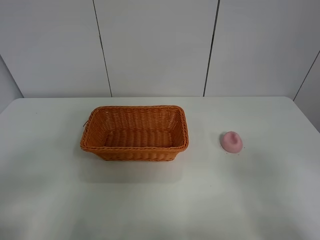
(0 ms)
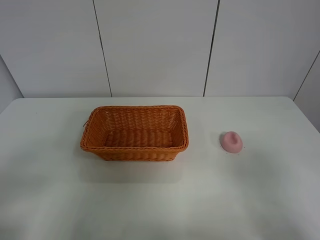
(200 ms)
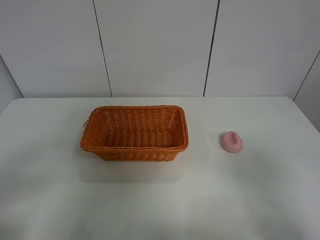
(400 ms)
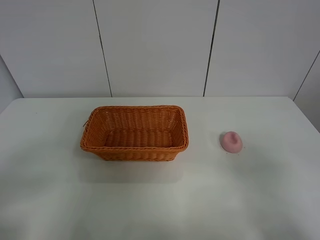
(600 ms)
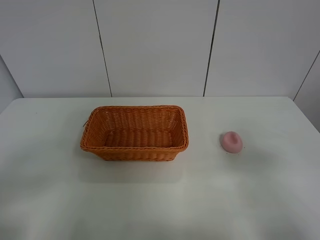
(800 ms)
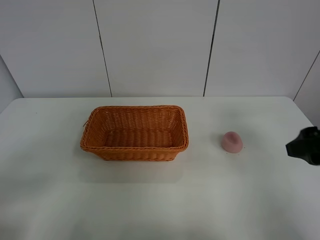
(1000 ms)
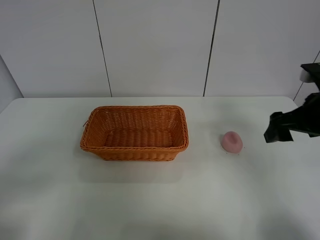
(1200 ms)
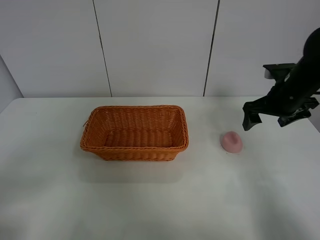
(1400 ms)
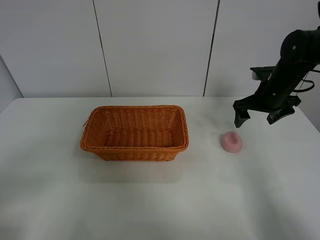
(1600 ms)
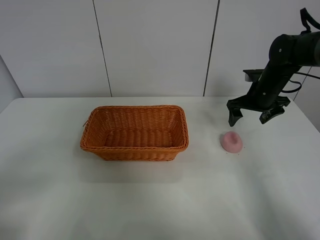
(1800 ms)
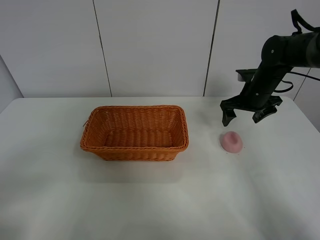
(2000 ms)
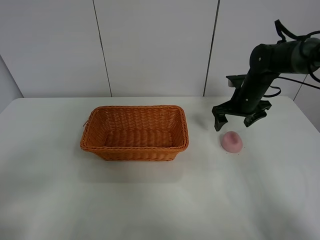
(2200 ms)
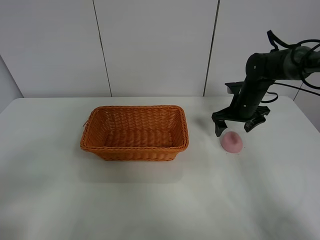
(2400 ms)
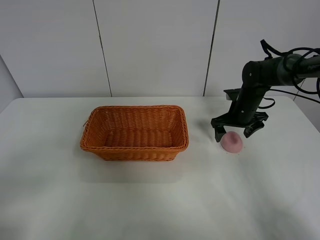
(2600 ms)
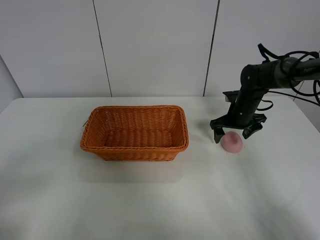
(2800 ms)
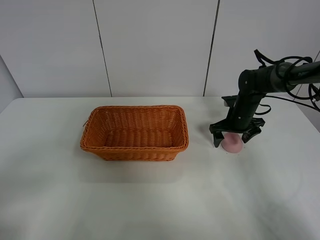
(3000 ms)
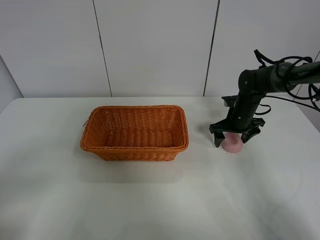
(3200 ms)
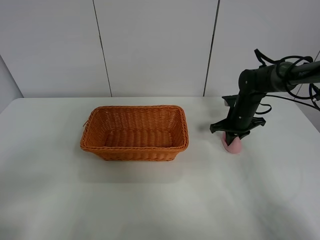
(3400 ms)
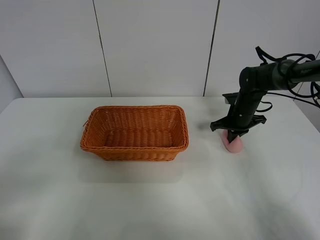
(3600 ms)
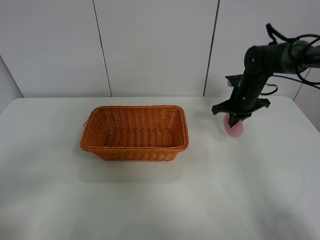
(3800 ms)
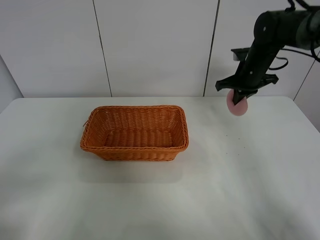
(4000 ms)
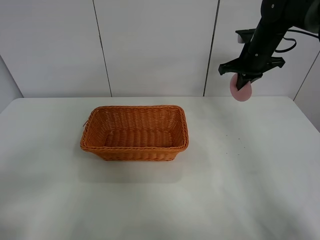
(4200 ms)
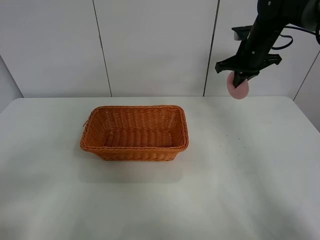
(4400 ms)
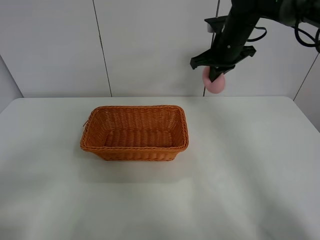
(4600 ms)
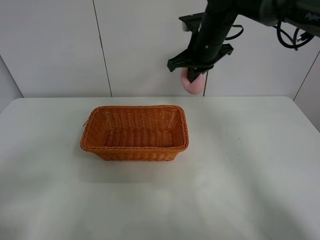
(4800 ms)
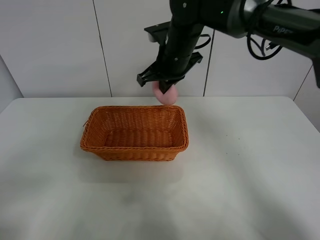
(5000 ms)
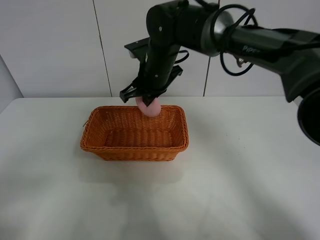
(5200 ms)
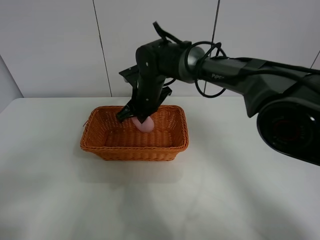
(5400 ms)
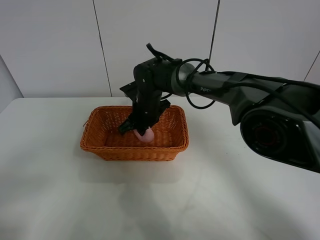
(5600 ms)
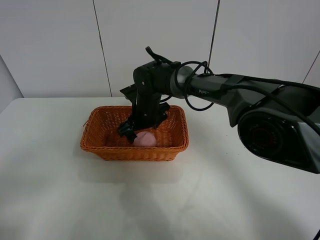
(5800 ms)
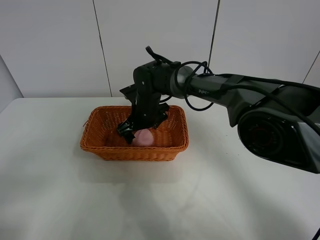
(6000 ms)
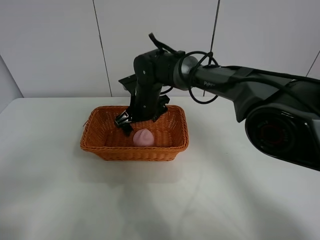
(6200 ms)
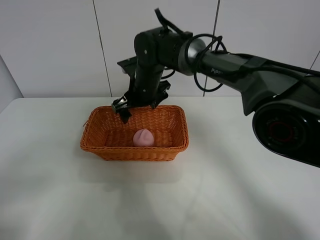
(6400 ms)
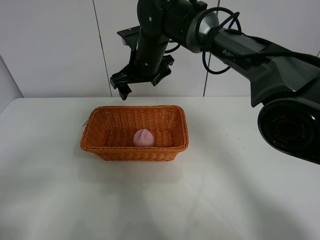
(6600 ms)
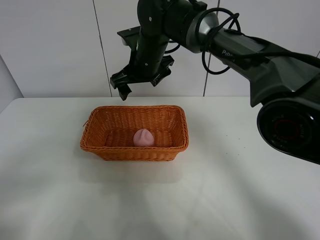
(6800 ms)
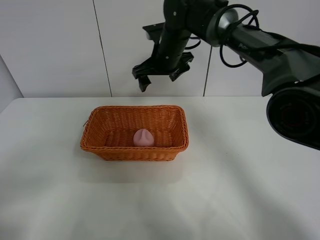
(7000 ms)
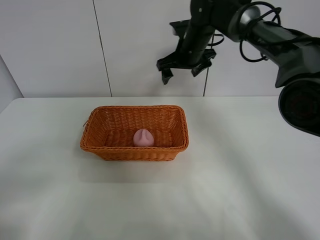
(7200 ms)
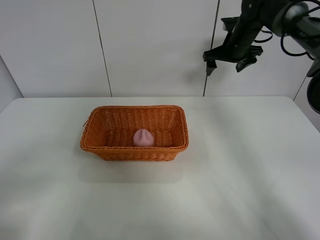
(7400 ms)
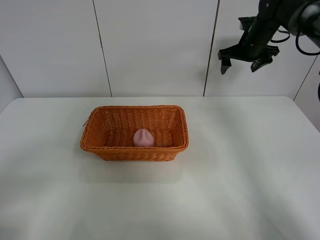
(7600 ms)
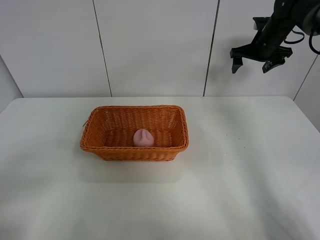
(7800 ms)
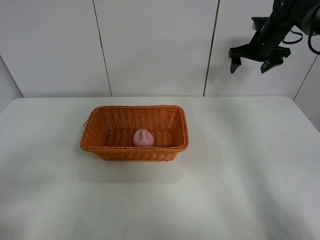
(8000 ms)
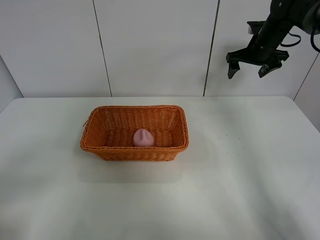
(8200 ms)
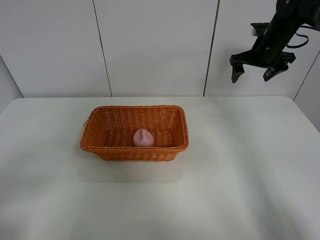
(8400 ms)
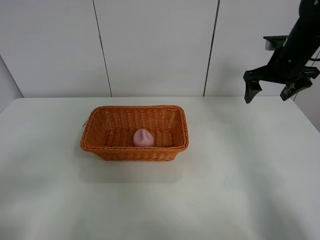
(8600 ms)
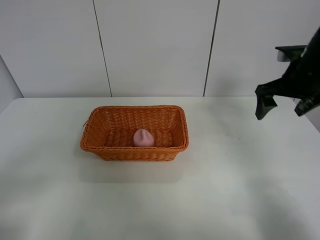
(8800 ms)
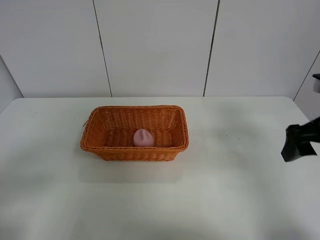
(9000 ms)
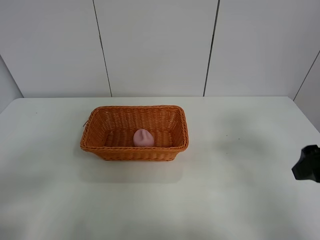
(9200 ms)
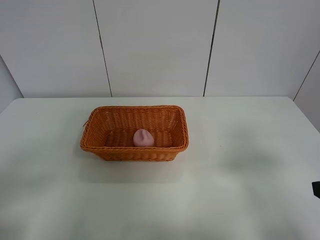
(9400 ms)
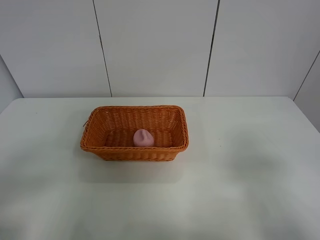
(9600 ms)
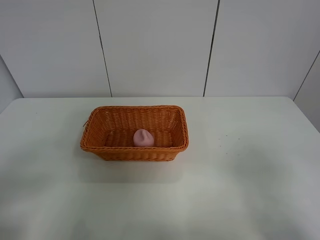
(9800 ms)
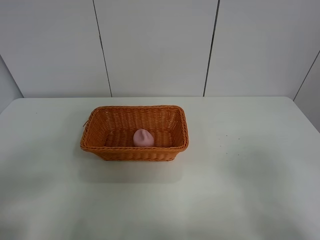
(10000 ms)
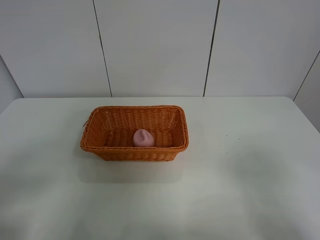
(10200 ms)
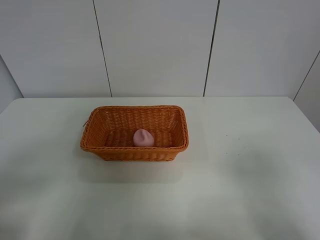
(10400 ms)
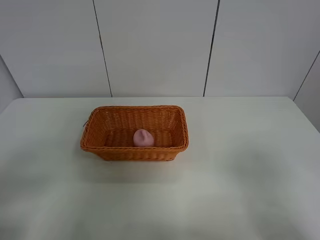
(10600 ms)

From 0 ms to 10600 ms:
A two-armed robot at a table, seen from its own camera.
Step, from 0 ms to 3600 ms: Grasp the peach with right gripper.
Step, from 3800 ms to 6400 ms: Place the peach in the basket with right gripper.
From 0 ms to 1600 ms: The right gripper heads forward, covering roughly 40 cm.
From 1600 ms to 3000 ms: The right gripper is displaced downward by roughly 10 cm.
From 3000 ms to 4600 ms: The right gripper travels upward and to the left by approximately 20 cm, and closes.
From 4600 ms to 6000 ms: The right gripper shifts some 25 cm to the left and downward, and opens.
From 6000 ms to 7600 ms: The right gripper travels to the right, upward and forward by some 35 cm.
From 7600 ms to 9000 ms: The right gripper shifts approximately 30 cm backward.
From 9000 ms to 10600 ms: The right gripper moves backward, approximately 20 cm.

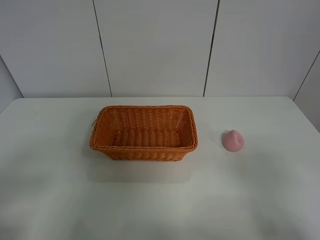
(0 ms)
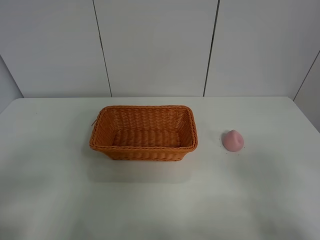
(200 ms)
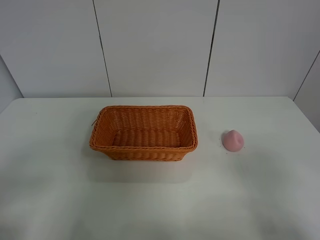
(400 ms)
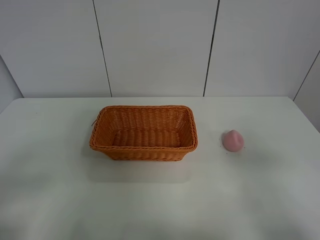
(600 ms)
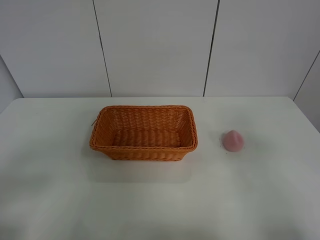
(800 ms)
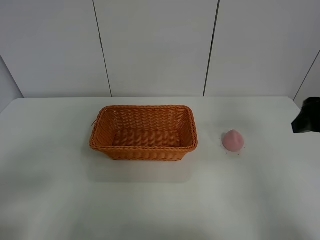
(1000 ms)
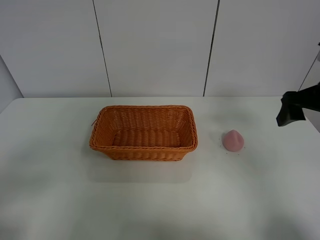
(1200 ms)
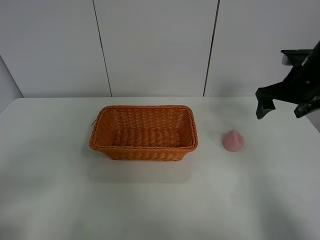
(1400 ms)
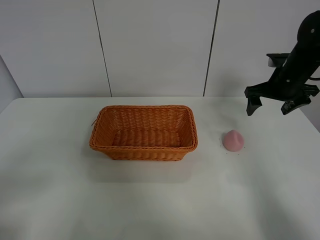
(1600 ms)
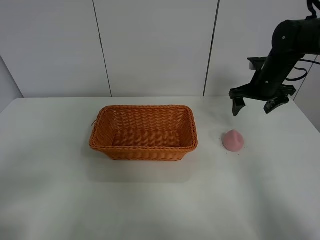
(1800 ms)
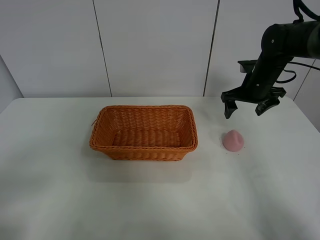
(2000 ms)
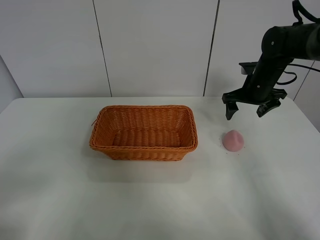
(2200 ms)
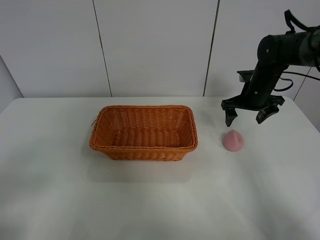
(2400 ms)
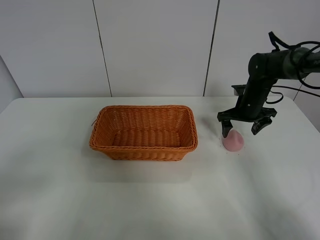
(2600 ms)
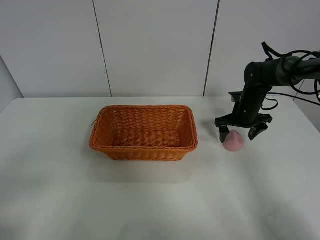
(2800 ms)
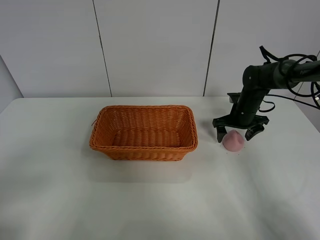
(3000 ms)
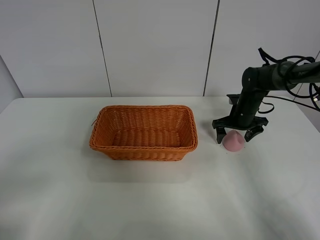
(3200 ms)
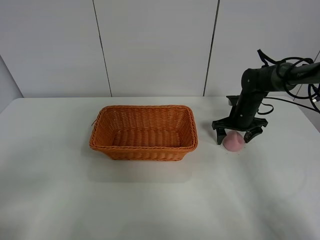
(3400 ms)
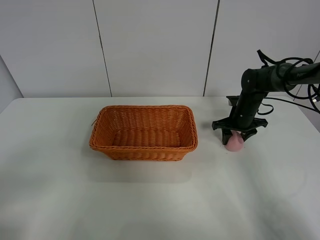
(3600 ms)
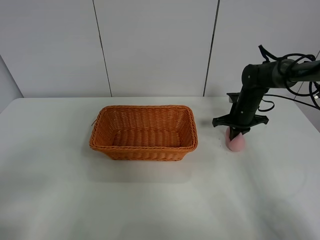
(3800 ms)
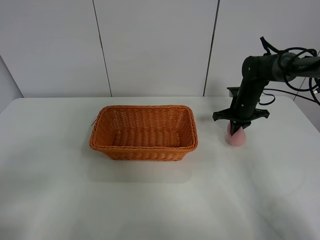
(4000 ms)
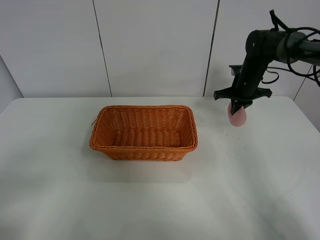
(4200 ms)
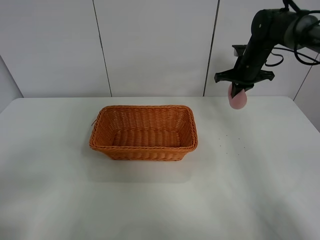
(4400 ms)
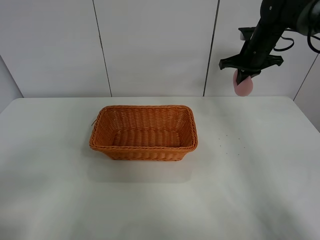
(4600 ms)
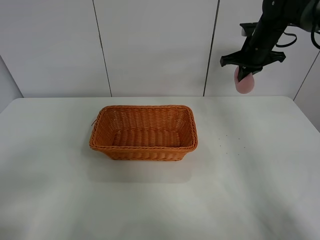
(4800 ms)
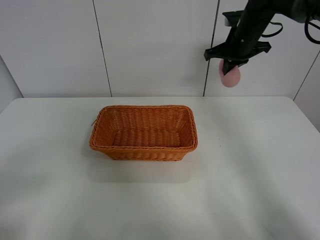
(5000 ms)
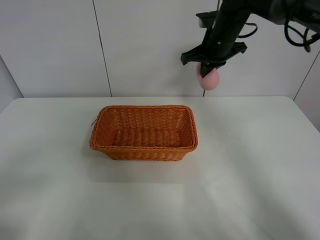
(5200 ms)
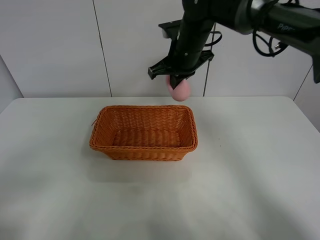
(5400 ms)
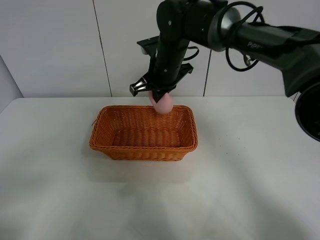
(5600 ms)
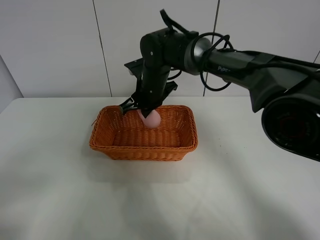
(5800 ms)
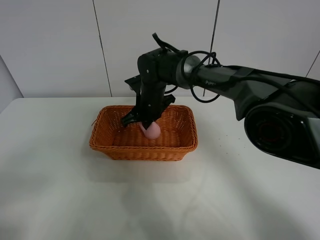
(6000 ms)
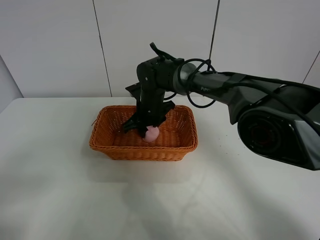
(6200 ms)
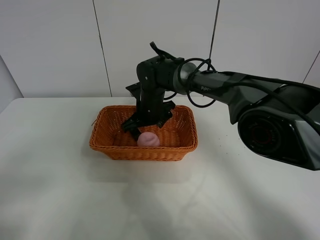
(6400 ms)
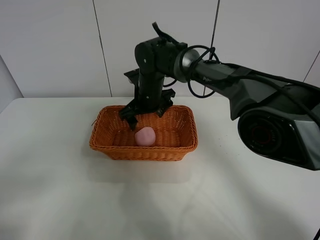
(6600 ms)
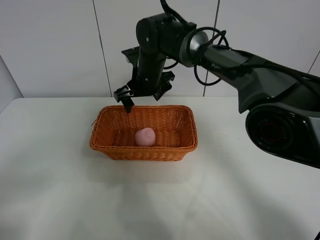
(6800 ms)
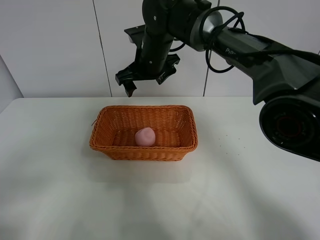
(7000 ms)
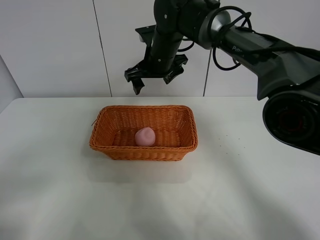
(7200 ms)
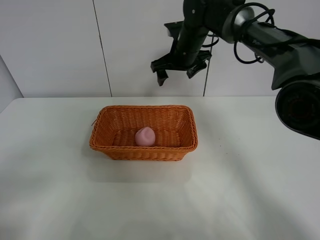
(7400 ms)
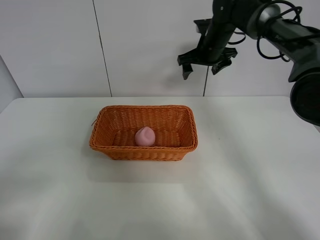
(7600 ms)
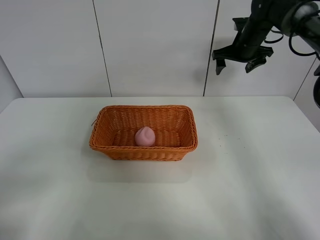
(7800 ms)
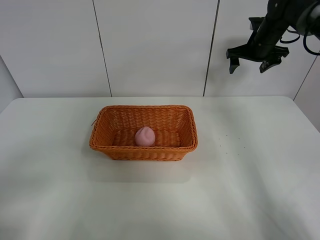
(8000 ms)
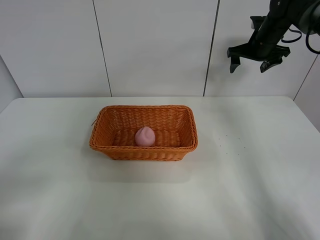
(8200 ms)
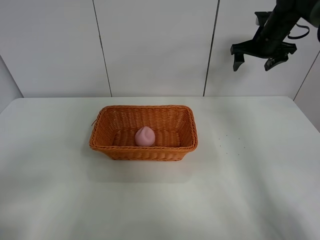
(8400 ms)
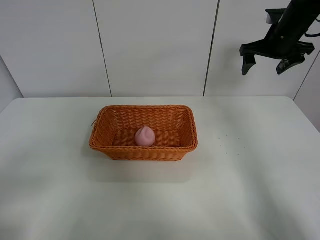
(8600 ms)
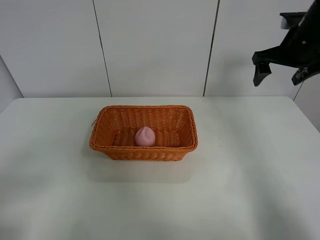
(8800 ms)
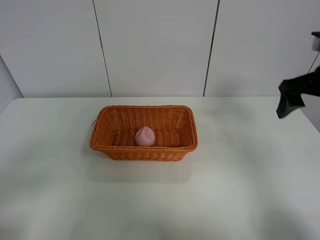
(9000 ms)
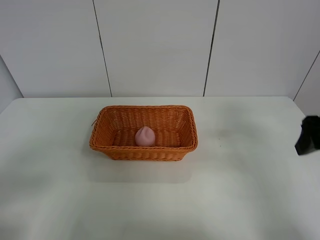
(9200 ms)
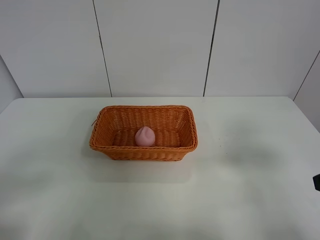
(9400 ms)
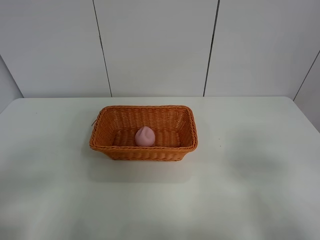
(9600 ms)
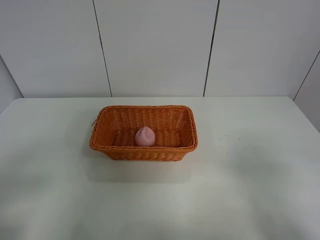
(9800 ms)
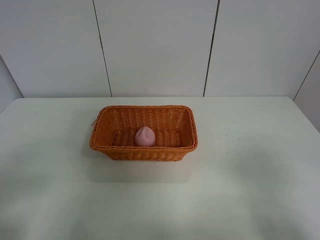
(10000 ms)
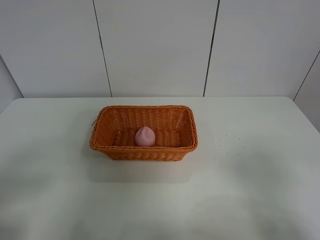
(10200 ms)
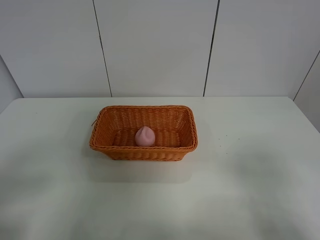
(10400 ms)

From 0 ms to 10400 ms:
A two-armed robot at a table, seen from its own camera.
Step, from 0 ms to 4000 ms: Grasp the peach with right gripper.
Step, from 4200 ms to 6800 ms: Place the peach in the basket with right gripper.
From 0 ms to 1400 ms: The right gripper moves forward, some 35 cm.
From 1400 ms to 3000 ms: The right gripper heads downward and forward, covering approximately 15 cm.
From 3000 ms to 4400 ms: The right gripper shifts about 15 cm upward, and closes.
From 4400 ms to 6000 ms: The right gripper travels to the left by roughly 25 cm.
From 6000 ms to 7400 ms: The right gripper goes about 15 cm upward, to the right and forward, and opens its fingers.
From 7400 ms to 9000 ms: The right gripper goes approximately 30 cm backward and to the right.
From 9000 ms to 10400 ms: The right gripper goes some 25 cm backward.
